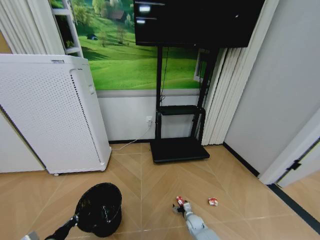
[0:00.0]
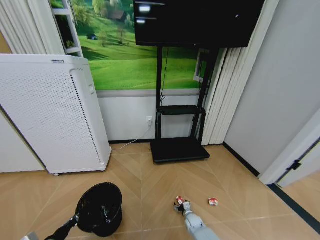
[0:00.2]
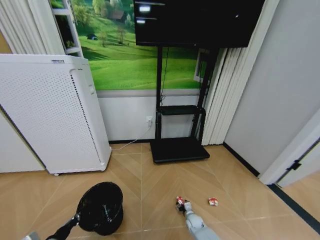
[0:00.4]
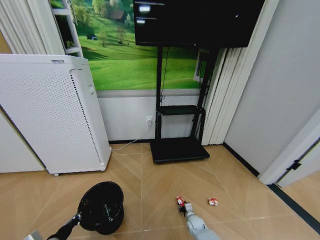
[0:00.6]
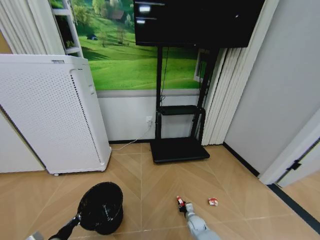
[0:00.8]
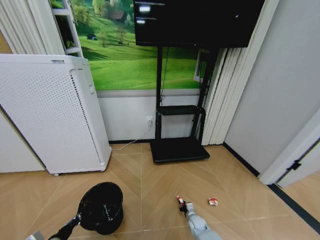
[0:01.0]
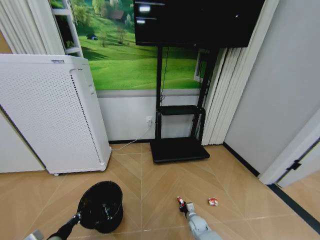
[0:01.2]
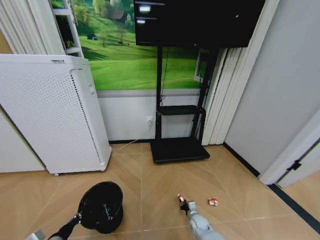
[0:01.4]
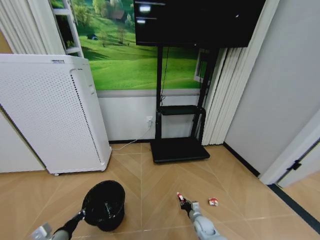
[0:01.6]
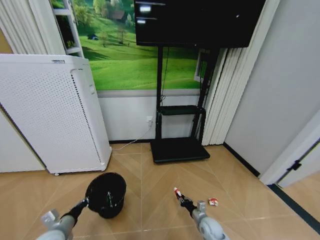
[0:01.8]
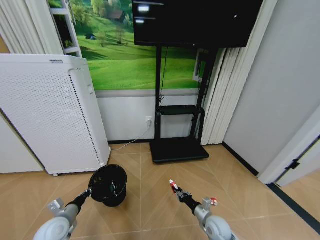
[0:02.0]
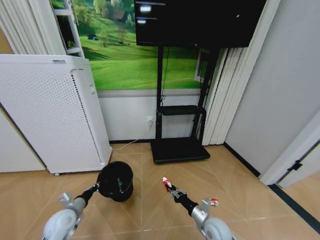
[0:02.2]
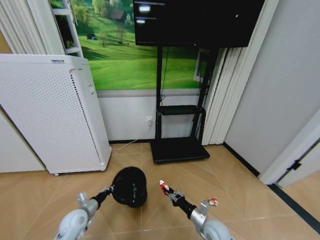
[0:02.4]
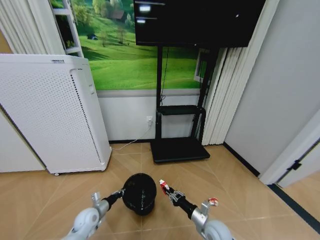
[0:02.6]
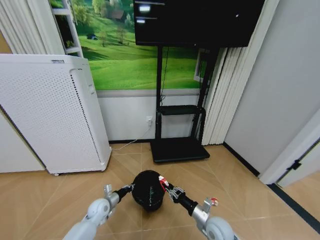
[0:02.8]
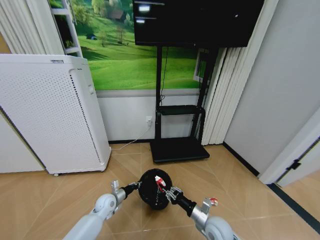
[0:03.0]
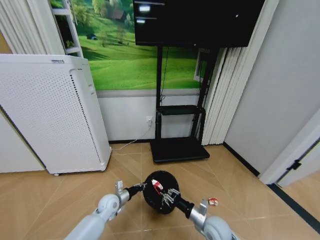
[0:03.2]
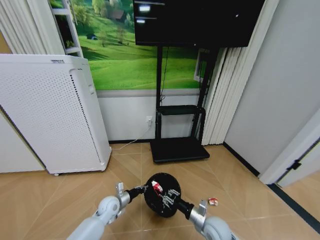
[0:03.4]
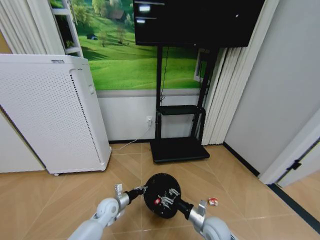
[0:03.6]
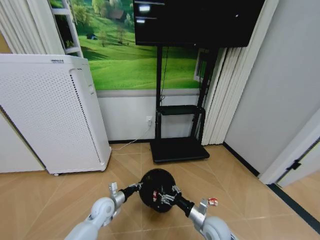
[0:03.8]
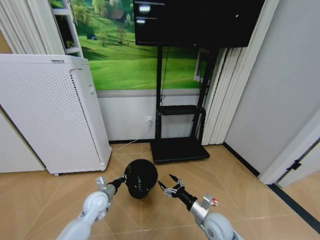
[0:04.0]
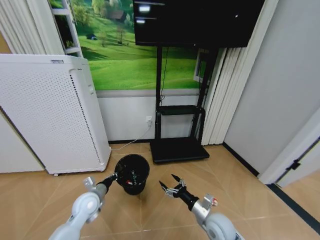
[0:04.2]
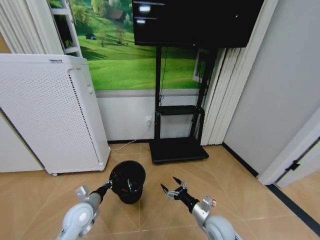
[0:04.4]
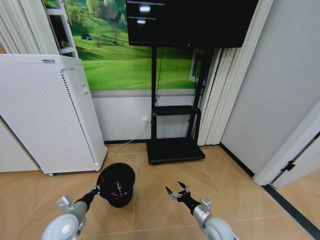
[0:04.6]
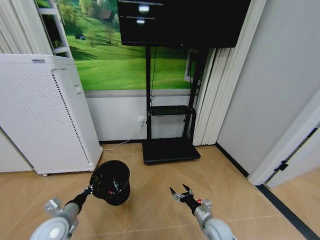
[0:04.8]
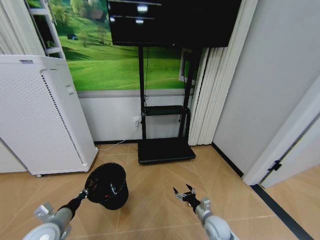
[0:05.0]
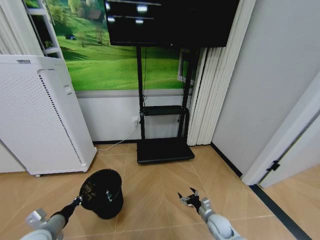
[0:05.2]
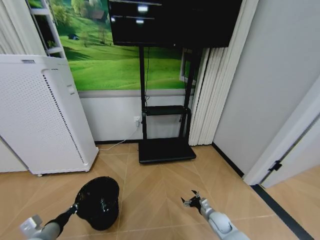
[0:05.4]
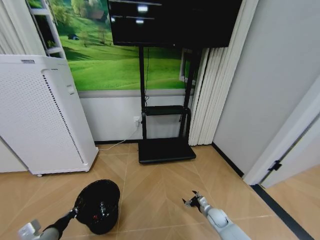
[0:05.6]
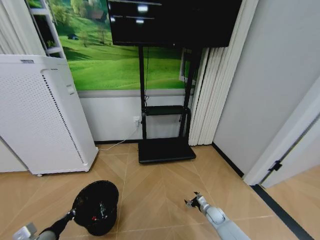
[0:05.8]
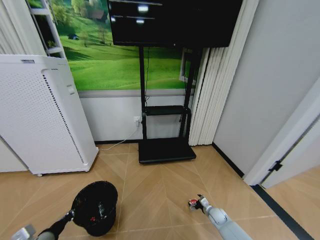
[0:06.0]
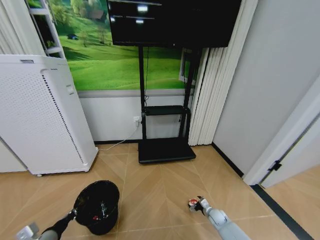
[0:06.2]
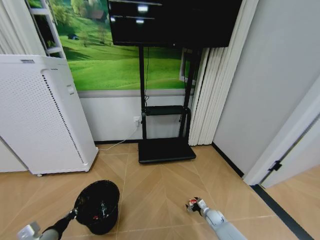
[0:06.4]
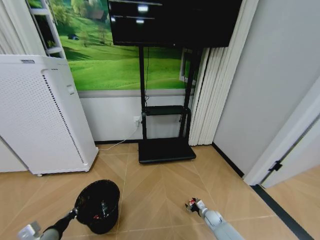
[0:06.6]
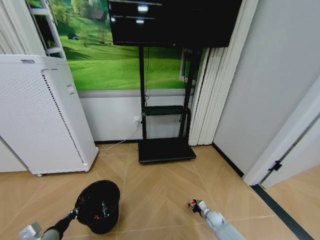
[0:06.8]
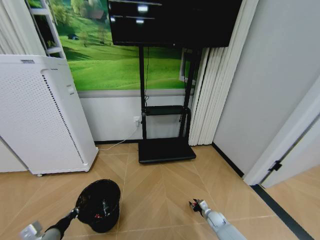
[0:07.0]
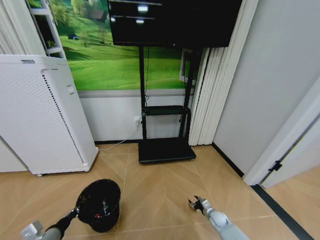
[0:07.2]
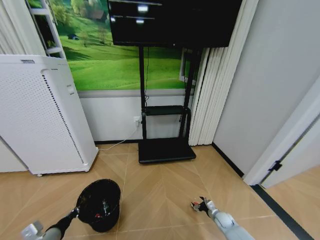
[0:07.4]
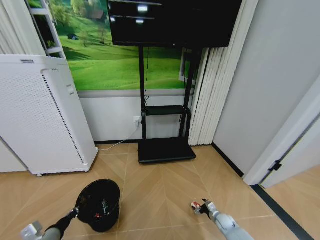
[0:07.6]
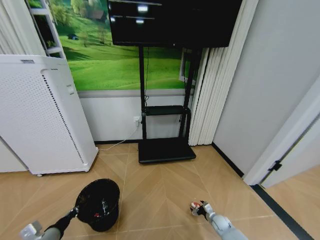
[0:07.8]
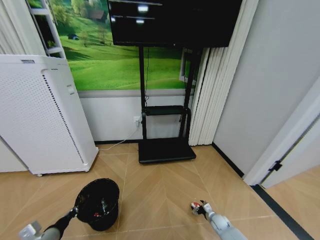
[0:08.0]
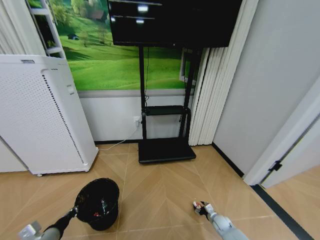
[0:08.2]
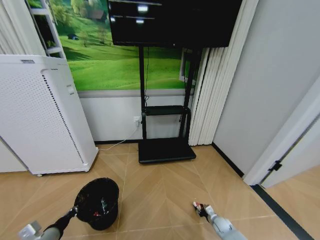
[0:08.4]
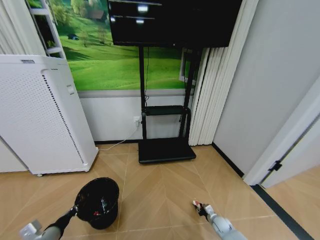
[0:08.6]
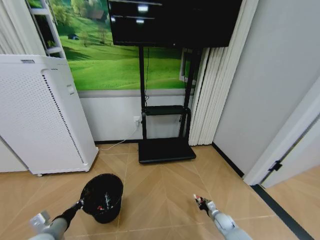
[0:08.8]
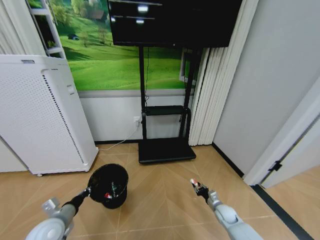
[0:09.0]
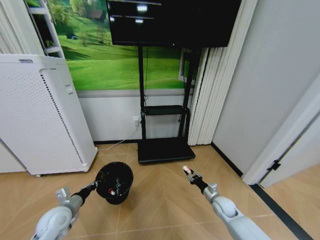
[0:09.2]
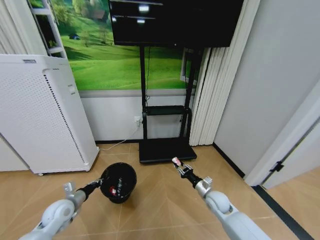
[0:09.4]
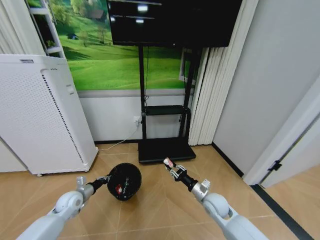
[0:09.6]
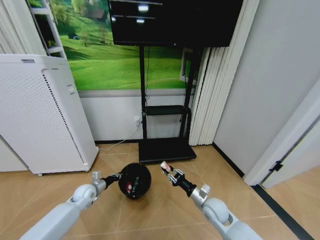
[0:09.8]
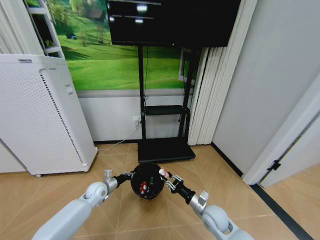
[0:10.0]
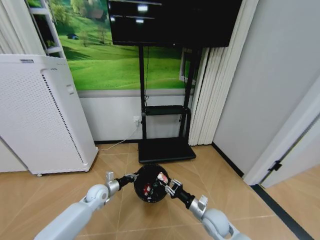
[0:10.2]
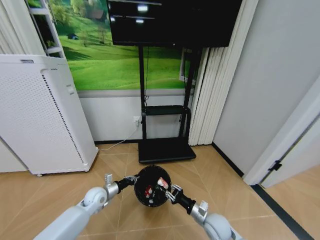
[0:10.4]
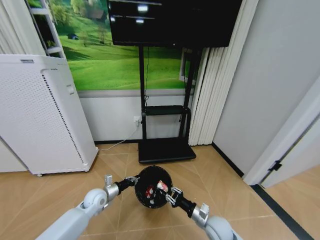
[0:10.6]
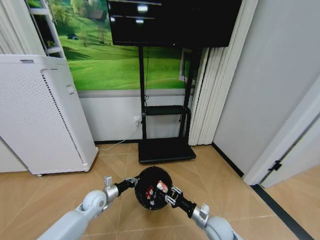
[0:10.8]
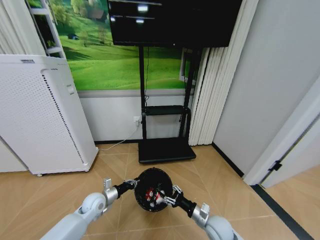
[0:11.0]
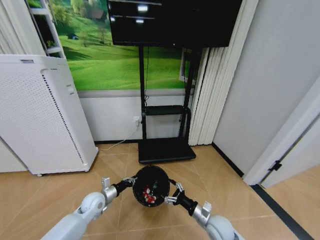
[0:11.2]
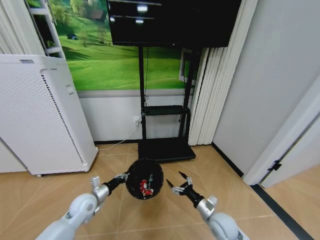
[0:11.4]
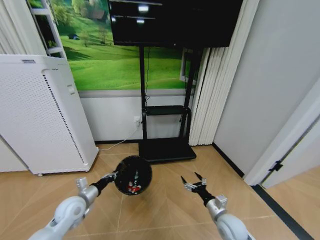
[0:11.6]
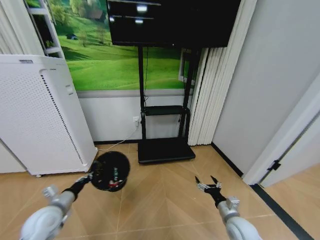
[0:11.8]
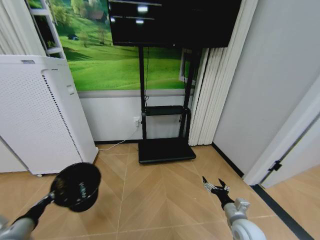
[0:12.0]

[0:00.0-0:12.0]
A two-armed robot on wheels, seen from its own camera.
Task of the whole recording: Pick up the trash bin and place the garbage on the floor into it.
0:00.0 to 0:01.6: The right gripper changes place by roughly 5 cm, and closes.
0:01.6 to 0:03.0: The right gripper goes roughly 20 cm upward. The left gripper goes approximately 25 cm forward, to the right and downward.
0:03.0 to 0:04.4: The right gripper opens its fingers, while the left gripper goes roughly 15 cm upward and backward.
0:04.4 to 0:06.0: The left gripper is displaced backward and to the left by roughly 15 cm. Meanwhile the right gripper goes about 25 cm downward, to the right and forward.
0:06.0 to 0:07.6: The right gripper closes and opens again.
0:07.6 to 0:09.0: The left gripper heads forward, covering about 5 cm, while the right gripper travels upward by roughly 5 cm, and closes its fingers.
0:09.0 to 0:10.4: The right gripper heads to the left, upward and backward, covering some 20 cm, while the left gripper shifts some 20 cm forward, to the right and downward.
0:10.4 to 0:12.0: The left gripper travels backward, to the left and upward by roughly 30 cm. The right gripper moves to the right, approximately 10 cm, and opens.

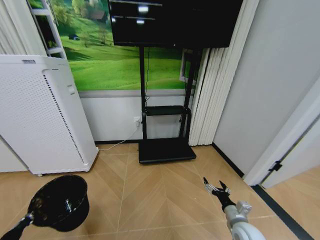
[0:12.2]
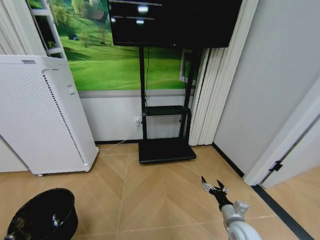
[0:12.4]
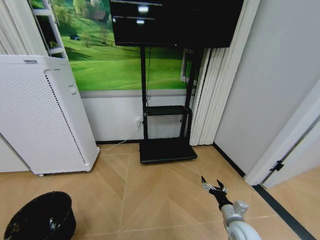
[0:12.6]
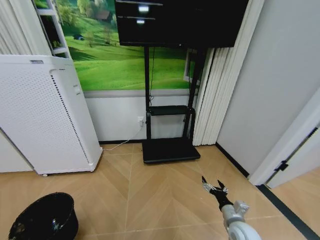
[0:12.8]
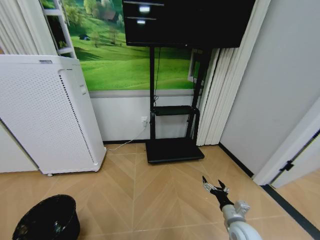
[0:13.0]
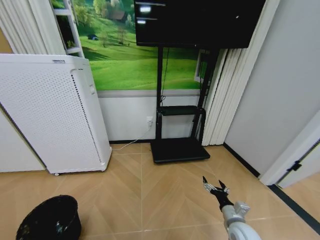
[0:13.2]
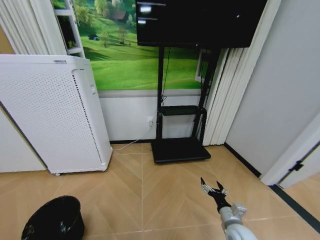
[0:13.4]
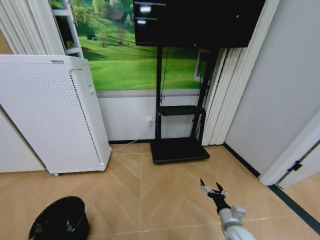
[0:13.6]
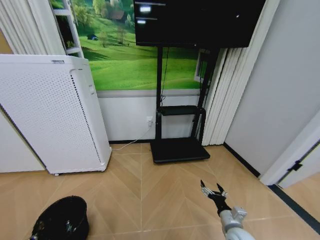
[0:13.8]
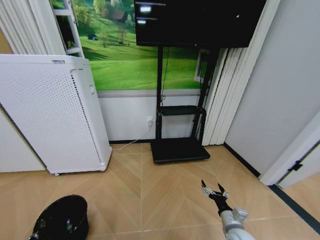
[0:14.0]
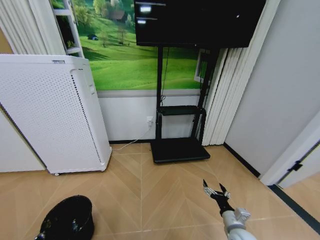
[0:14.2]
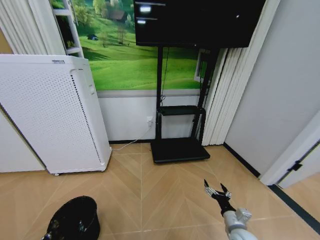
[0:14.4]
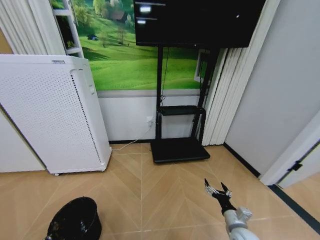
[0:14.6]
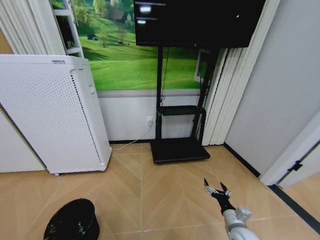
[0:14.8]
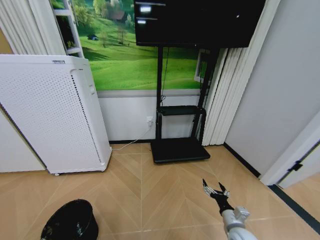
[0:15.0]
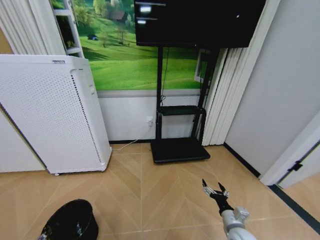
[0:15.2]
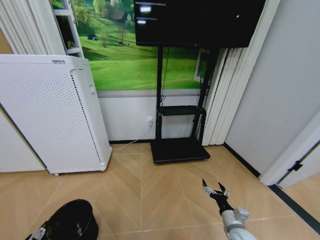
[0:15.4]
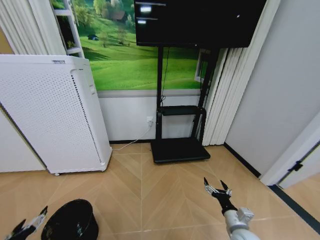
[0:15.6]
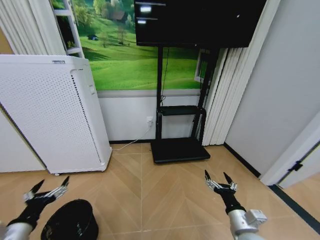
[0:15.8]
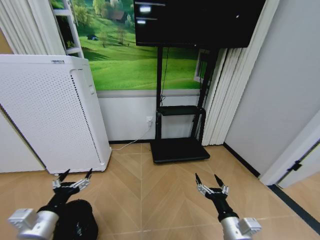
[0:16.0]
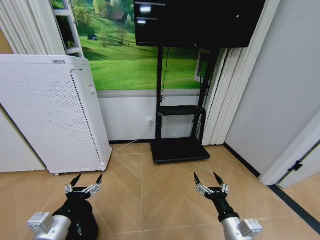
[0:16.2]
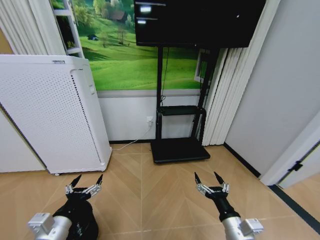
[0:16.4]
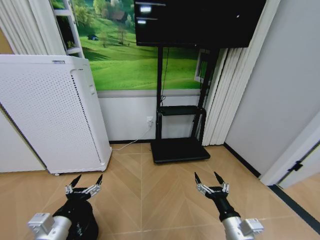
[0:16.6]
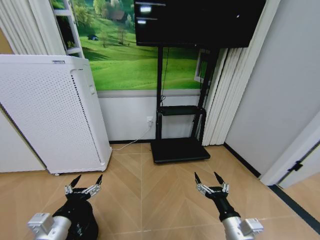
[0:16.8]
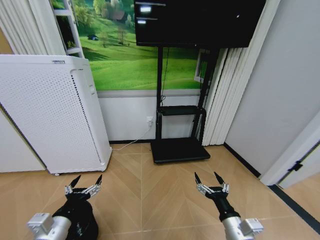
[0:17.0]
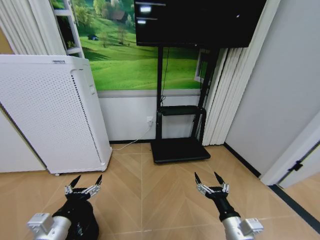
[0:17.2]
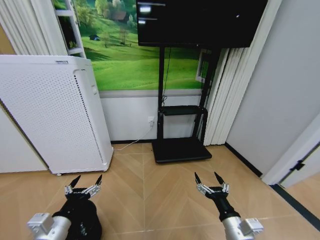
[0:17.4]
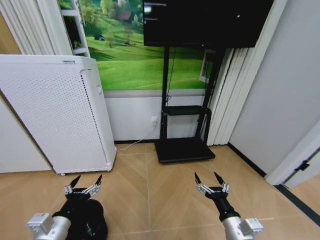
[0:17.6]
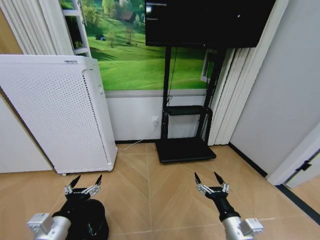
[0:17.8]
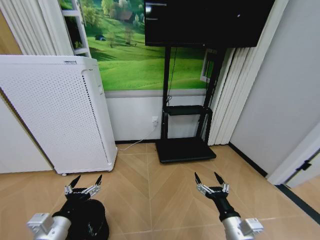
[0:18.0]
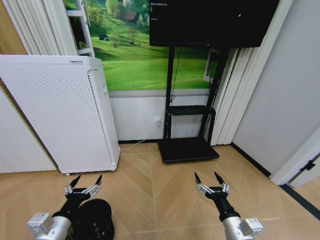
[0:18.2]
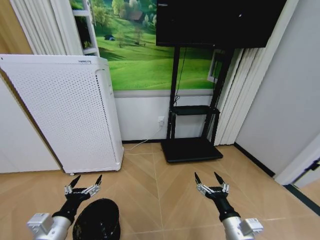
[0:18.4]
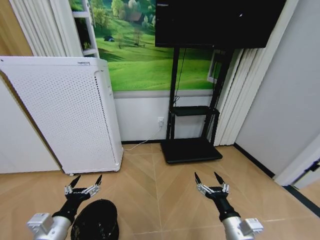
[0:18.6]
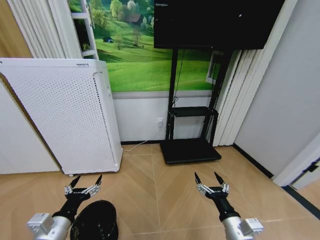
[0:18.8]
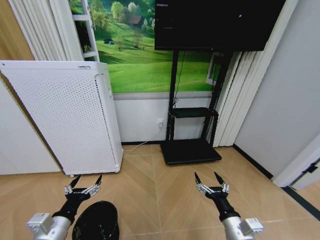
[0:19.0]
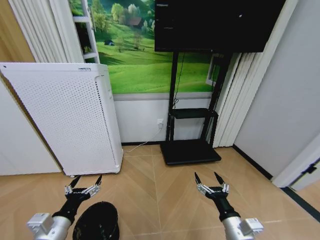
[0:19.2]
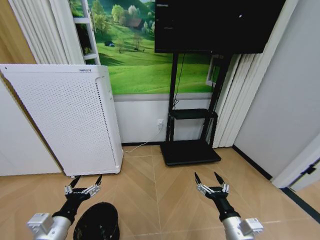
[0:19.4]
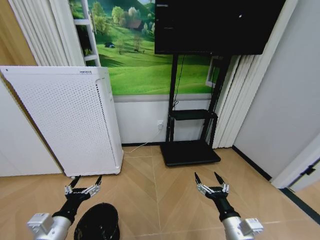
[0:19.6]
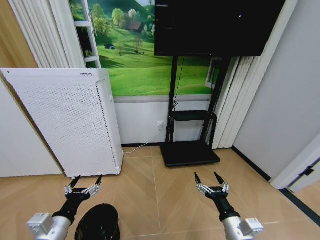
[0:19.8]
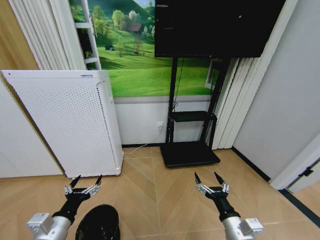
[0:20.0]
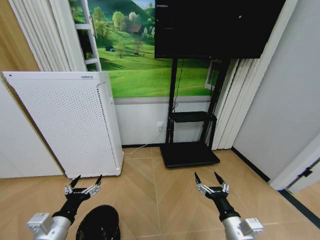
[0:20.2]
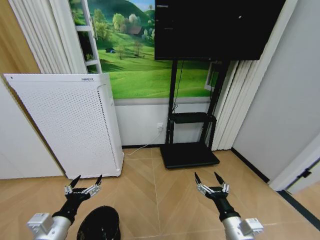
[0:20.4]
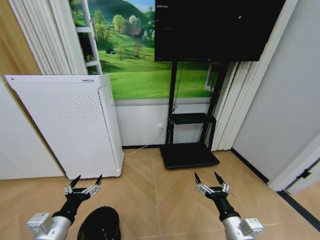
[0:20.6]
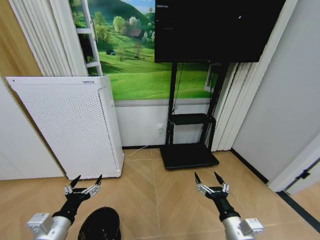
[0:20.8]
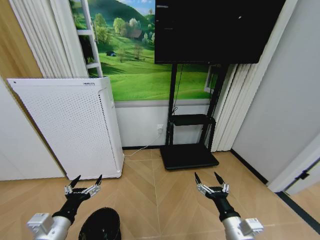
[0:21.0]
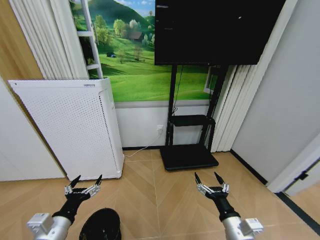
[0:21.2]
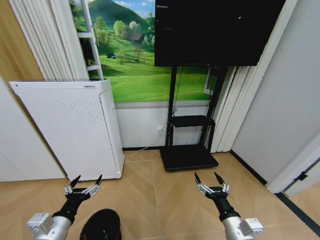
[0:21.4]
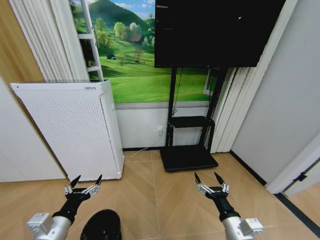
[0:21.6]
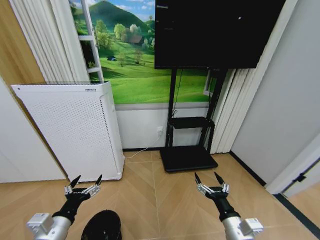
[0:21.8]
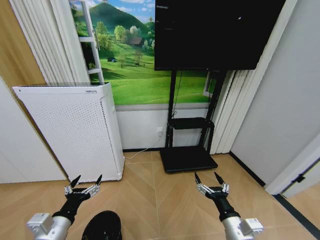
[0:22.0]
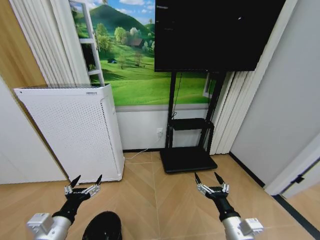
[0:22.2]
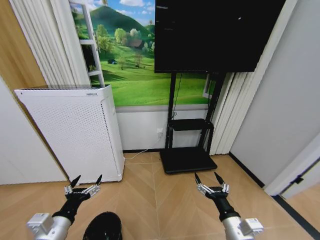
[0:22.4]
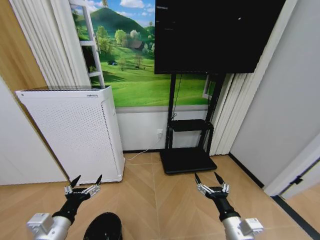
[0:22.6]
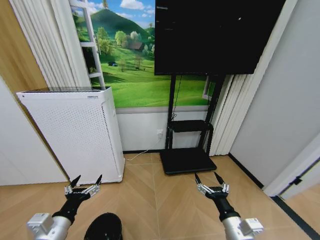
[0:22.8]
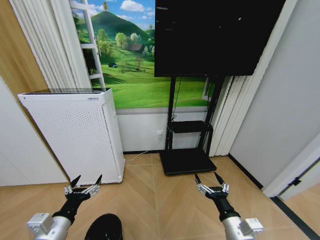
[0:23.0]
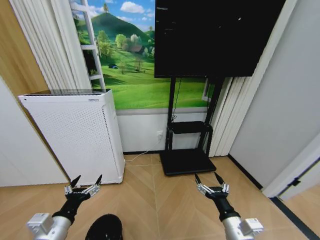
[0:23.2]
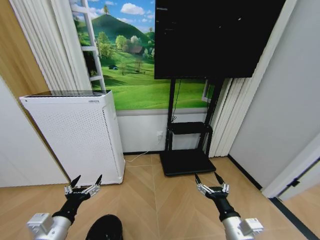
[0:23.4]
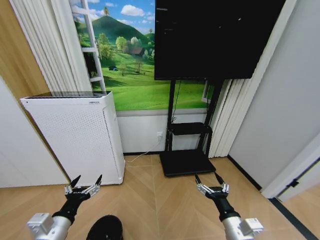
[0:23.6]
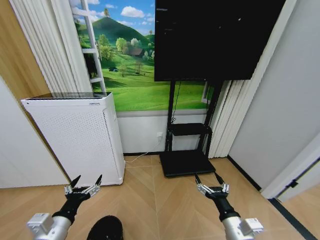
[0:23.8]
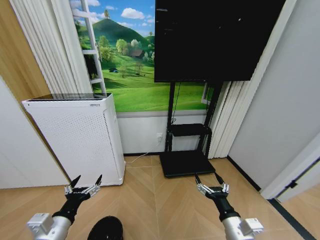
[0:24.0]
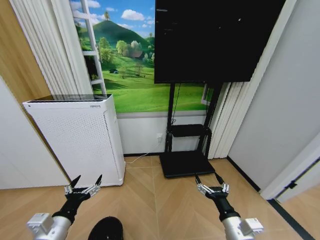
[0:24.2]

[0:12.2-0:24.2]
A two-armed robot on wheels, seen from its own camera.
Task of the whole recording: Pick up the trash bin and place the garbage on the floor into it.
0:12.2 to 0:13.8: The left gripper goes approximately 10 cm downward.
0:13.8 to 0:15.2: The left gripper opens up.
0:15.2 to 0:16.6: The left gripper goes roughly 25 cm to the right, upward and forward, and opens. The right gripper is displaced upward, to the left and backward by approximately 15 cm.
0:19.8 to 0:24.2: The two grippers keep their place.
